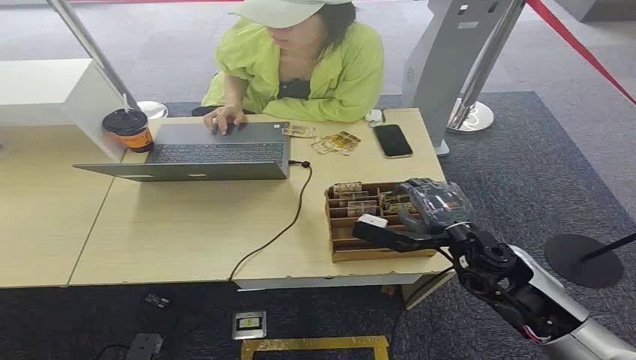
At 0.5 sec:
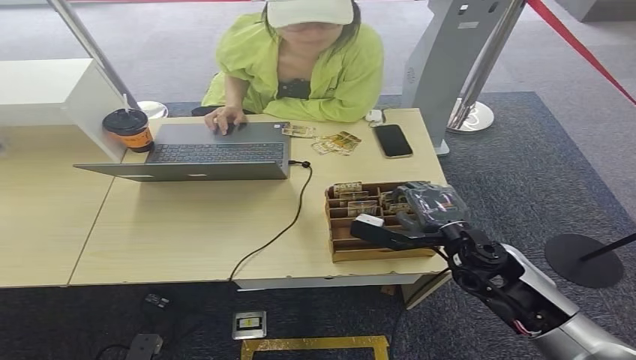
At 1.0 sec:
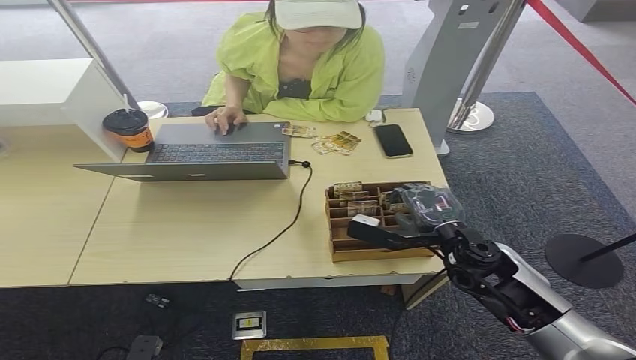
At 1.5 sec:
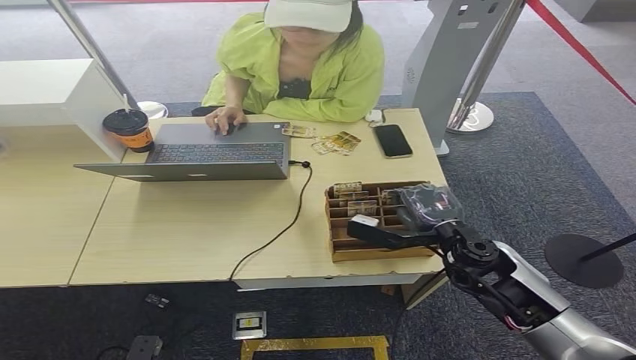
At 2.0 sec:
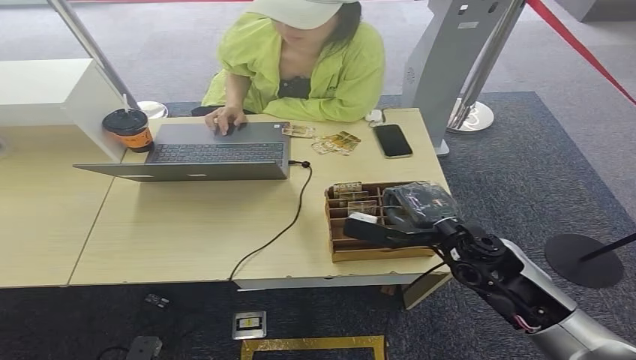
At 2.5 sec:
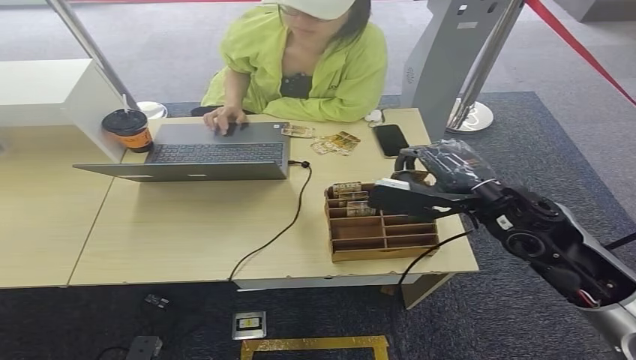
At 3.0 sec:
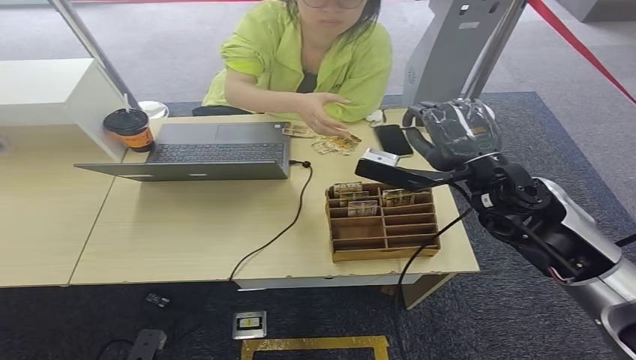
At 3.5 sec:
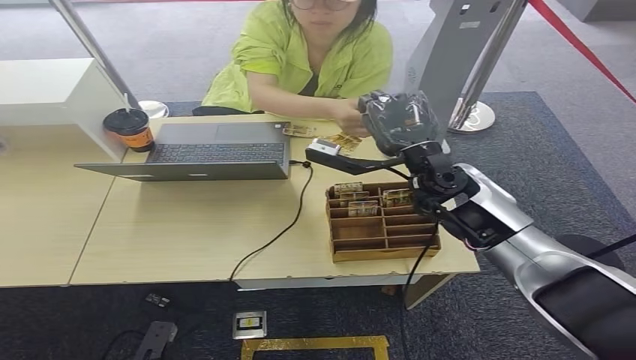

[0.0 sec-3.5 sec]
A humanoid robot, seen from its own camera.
Step, 0.0 sec to 2.0 sec: Pick up the room card from the card holder.
Step, 2.5 sec to 3.5 sec: Hand the room card to the target.
2.0 sec to 3.5 sec: The right hand heads forward, upward and to the left, covering approximately 15 cm.

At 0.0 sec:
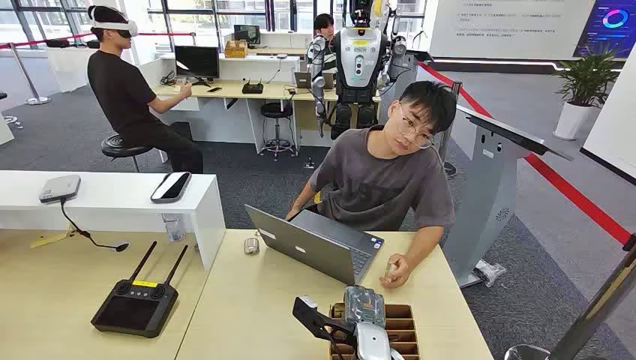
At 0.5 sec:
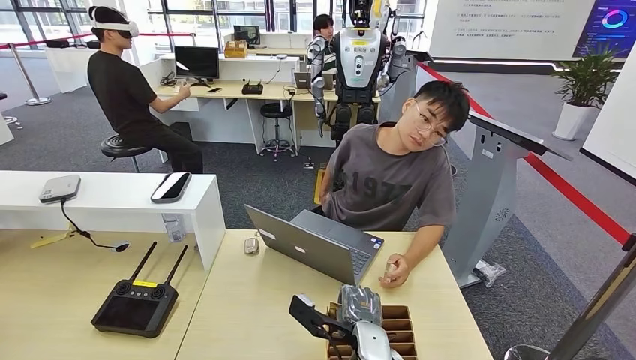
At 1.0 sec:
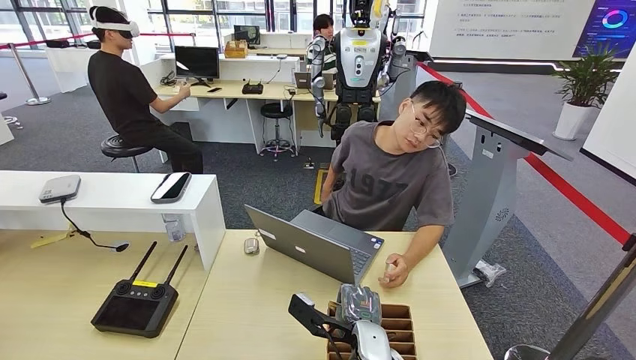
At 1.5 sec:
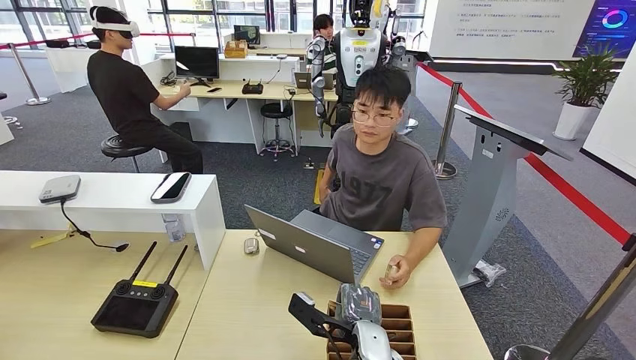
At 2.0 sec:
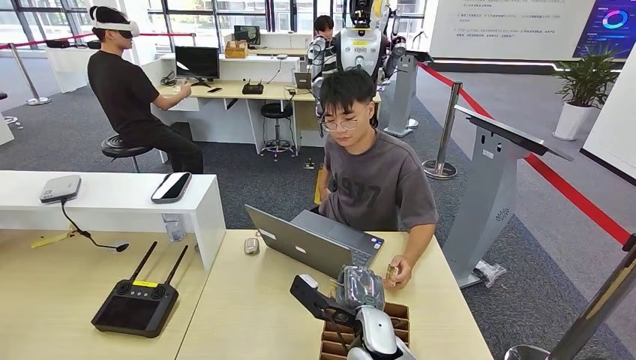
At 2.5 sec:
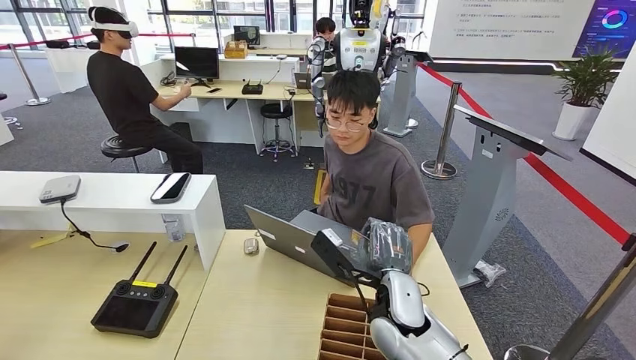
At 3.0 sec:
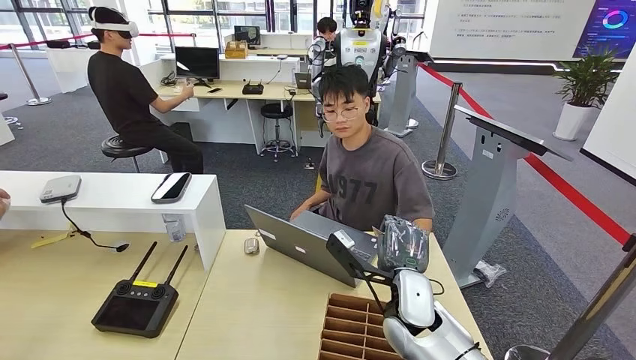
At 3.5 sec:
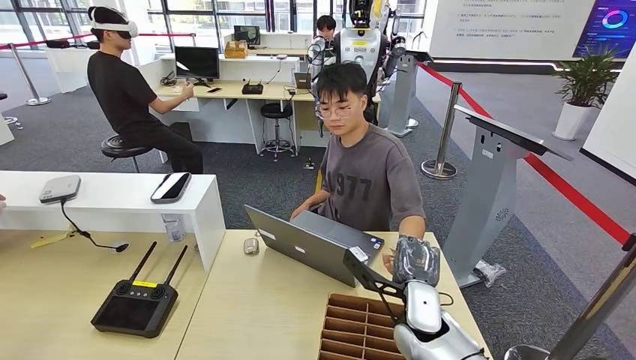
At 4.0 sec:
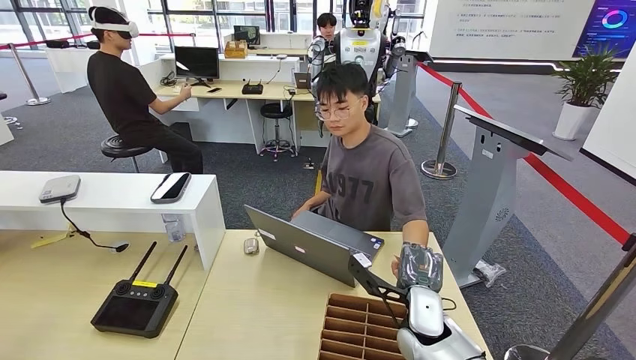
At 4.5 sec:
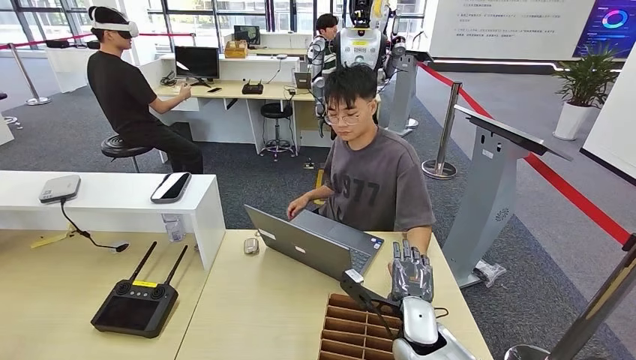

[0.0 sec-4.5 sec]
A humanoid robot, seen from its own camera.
Step, 0.0 sec to 2.0 sec: Pick up the room card from the card holder.
Step, 2.5 sec to 4.5 sec: Hand the room card to the target.
2.0 sec to 4.5 sec: The right hand moves to the right, about 10 cm.
